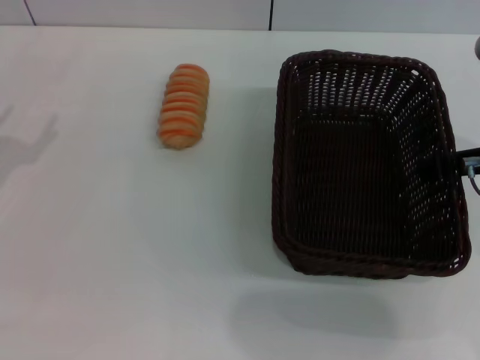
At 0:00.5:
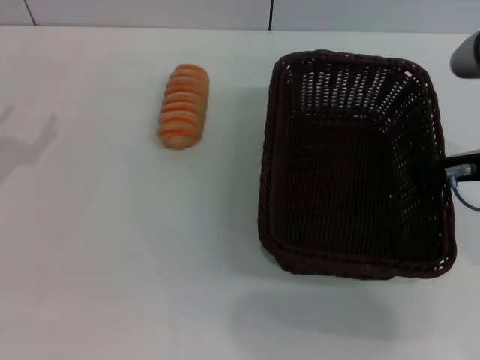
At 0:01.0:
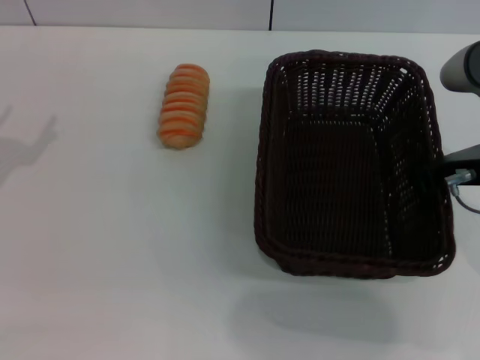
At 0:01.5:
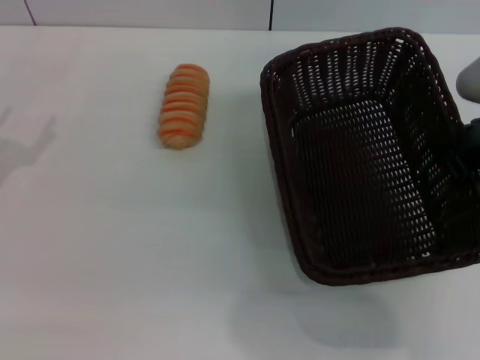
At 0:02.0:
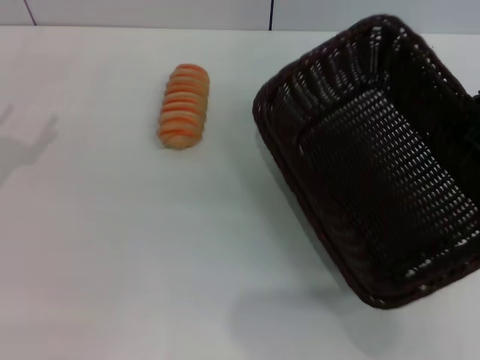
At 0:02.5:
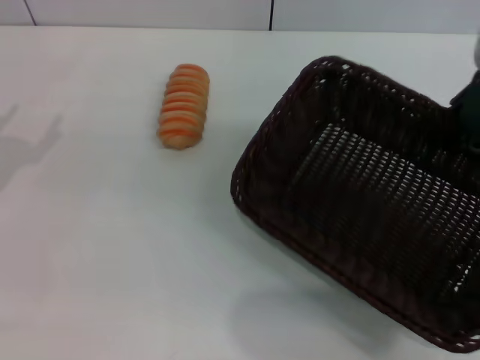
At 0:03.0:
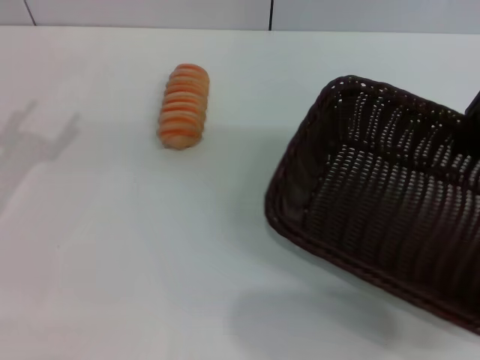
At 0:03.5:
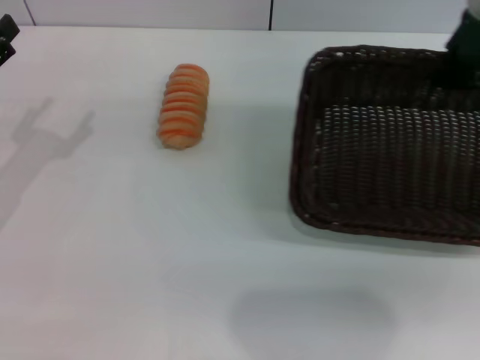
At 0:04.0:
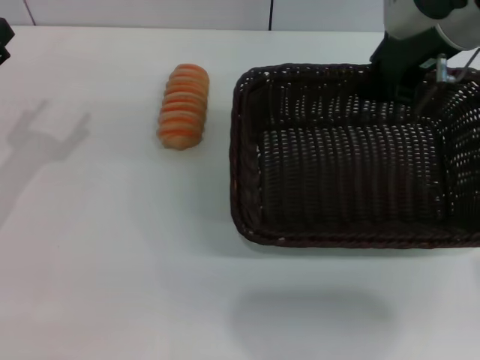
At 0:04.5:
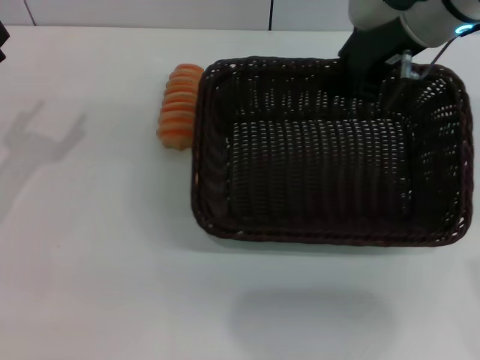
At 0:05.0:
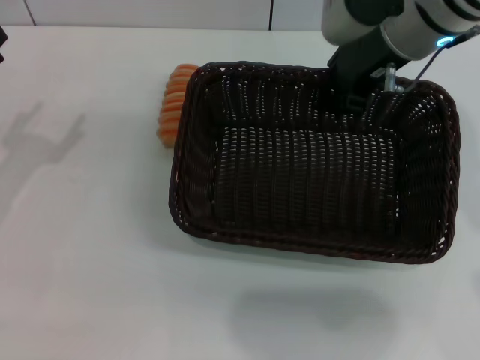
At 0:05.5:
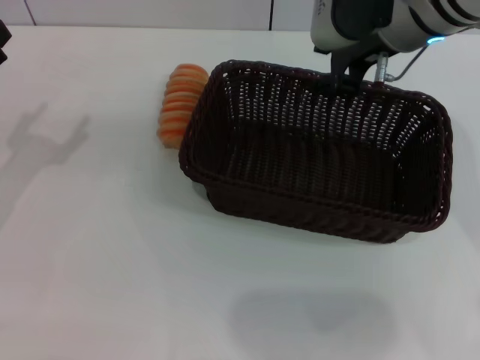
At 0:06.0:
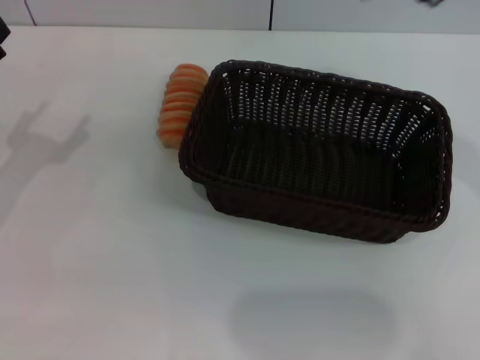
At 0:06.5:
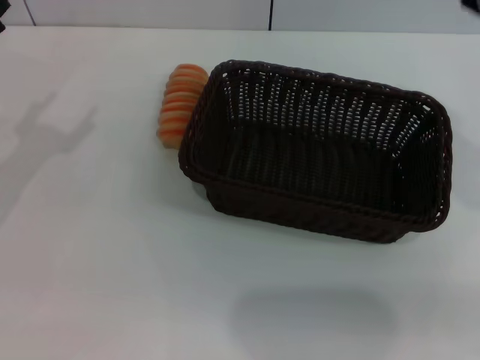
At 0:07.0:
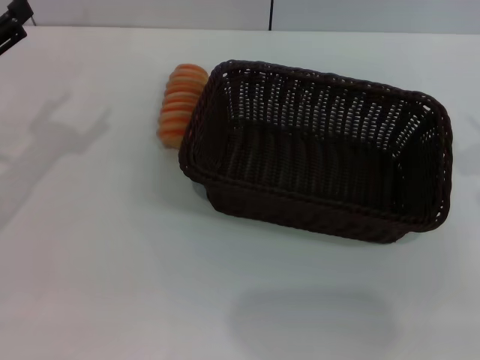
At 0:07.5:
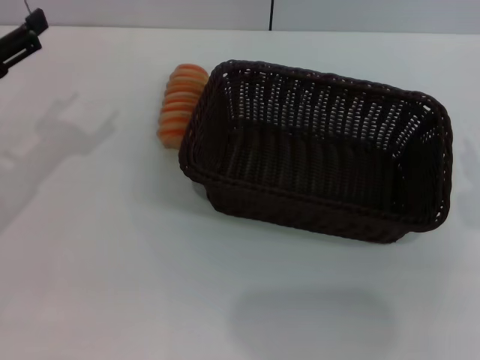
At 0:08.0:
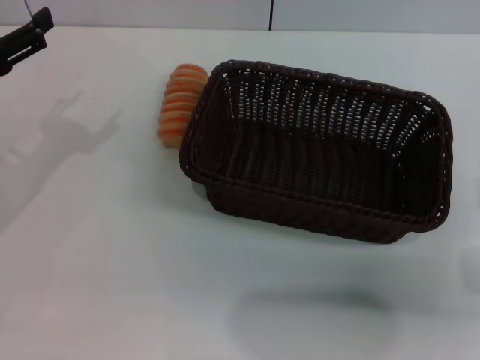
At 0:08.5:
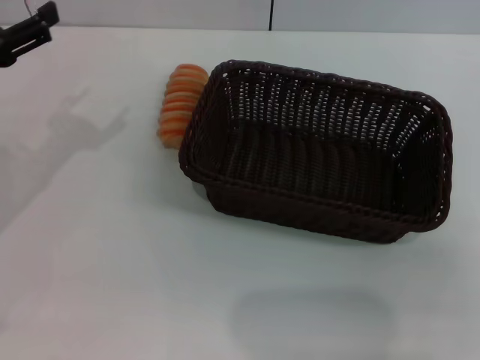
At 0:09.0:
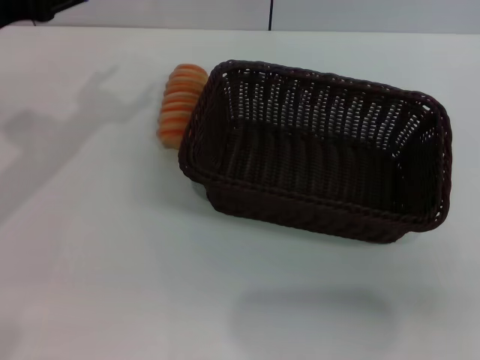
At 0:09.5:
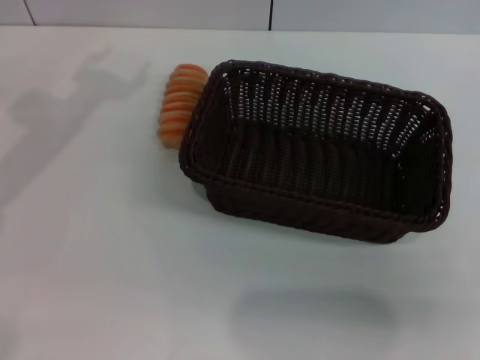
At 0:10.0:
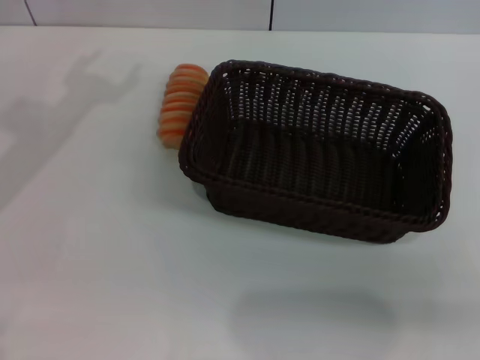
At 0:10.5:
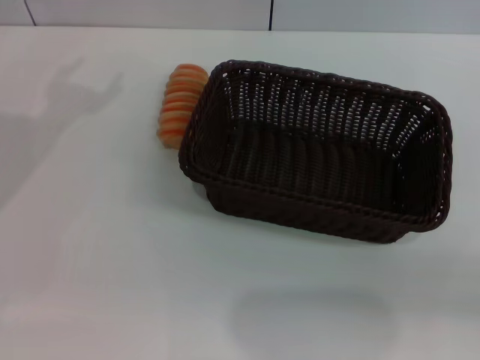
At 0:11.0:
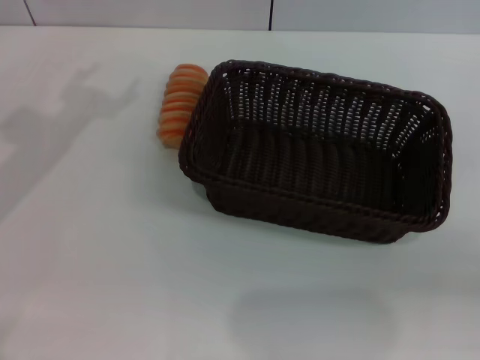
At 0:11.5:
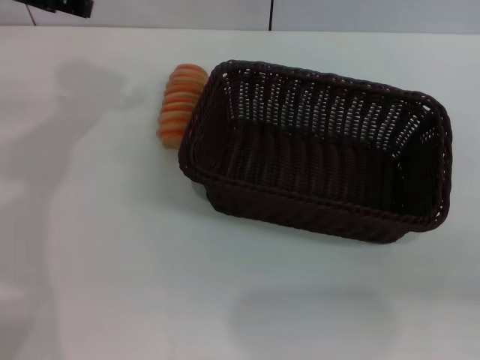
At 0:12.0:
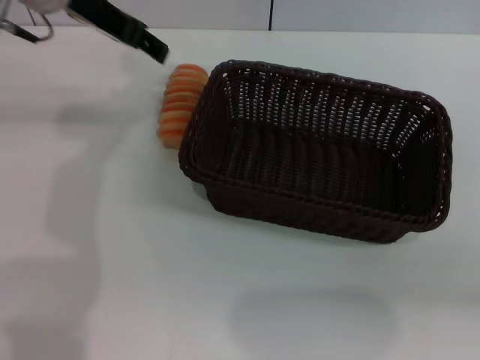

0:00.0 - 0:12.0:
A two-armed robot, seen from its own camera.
Step, 0:02.5 - 0:05.5: Place the dark basket in the center of view with the right gripper.
0:00.0 - 0:02.0: The right gripper shifts by approximately 5 cm, and closes.
0:02.0 - 0:04.0: The right gripper heads forward and to the left, covering about 15 cm.
0:04.0 - 0:06.0: The right gripper moves backward and upward, about 10 cm, and opens up.
0:06.0 - 0:08.0: The left gripper ends up some 5 cm from where it was. The right gripper travels backward, downward and to the right by approximately 25 cm.
0:08.0 - 0:10.0: The left gripper heads upward and forward, covering some 10 cm.
0:10.0 - 0:12.0: The left gripper travels to the right and forward by about 15 cm.

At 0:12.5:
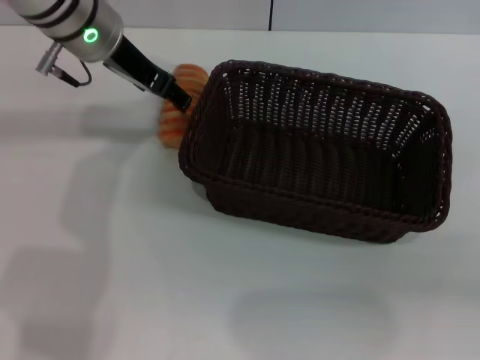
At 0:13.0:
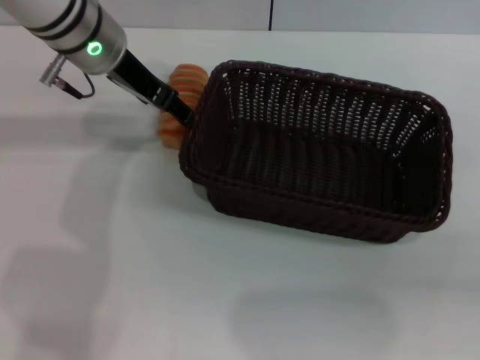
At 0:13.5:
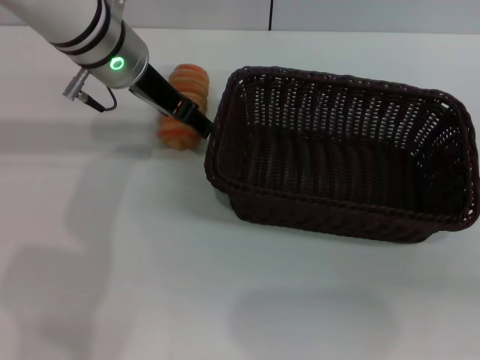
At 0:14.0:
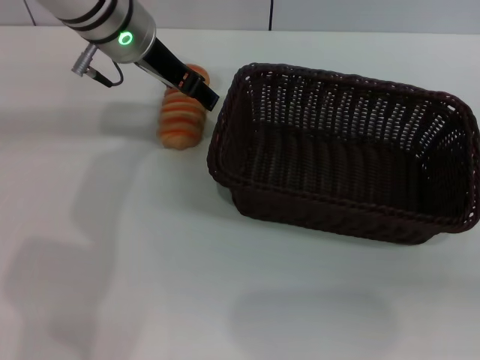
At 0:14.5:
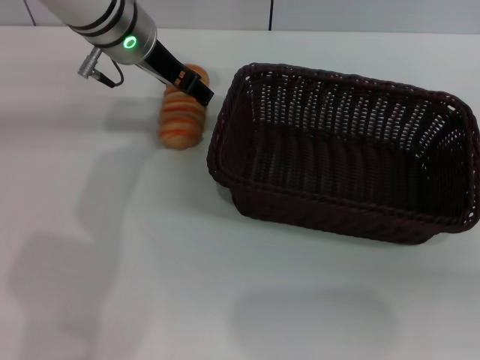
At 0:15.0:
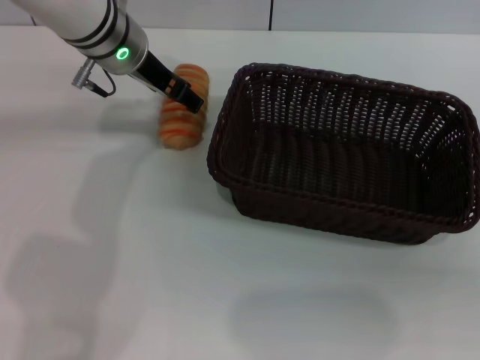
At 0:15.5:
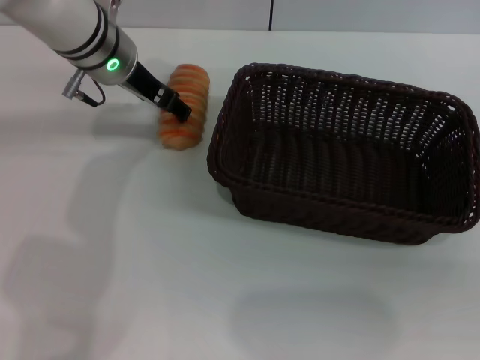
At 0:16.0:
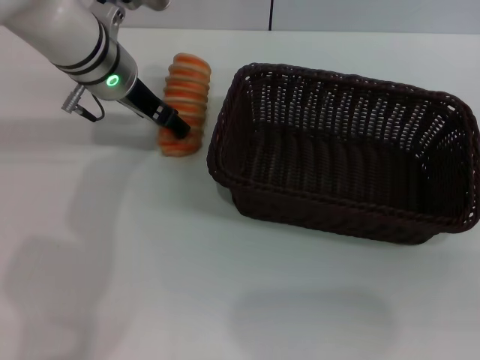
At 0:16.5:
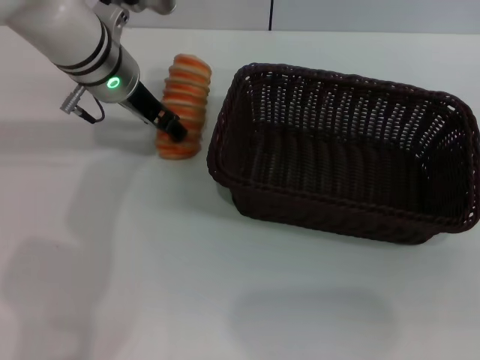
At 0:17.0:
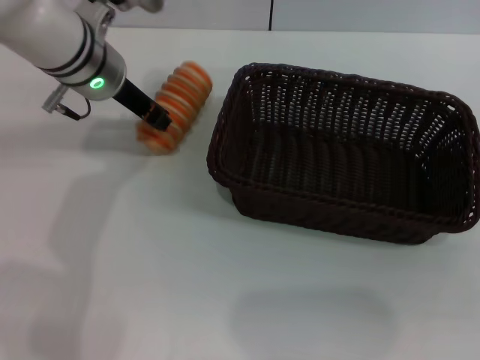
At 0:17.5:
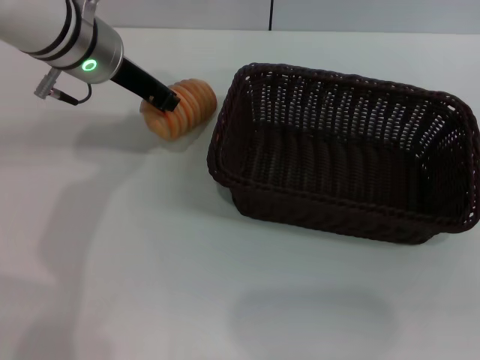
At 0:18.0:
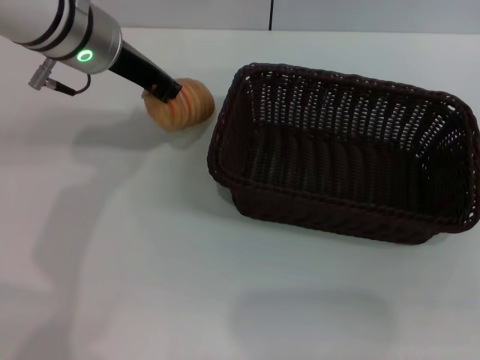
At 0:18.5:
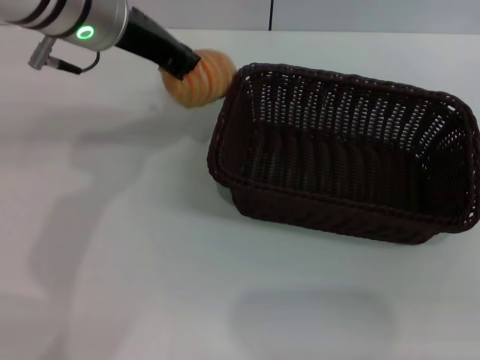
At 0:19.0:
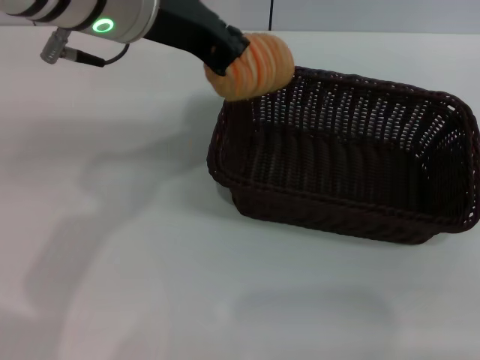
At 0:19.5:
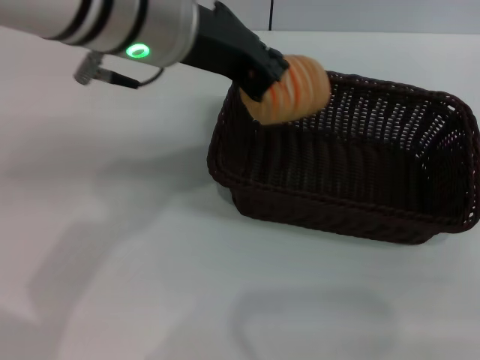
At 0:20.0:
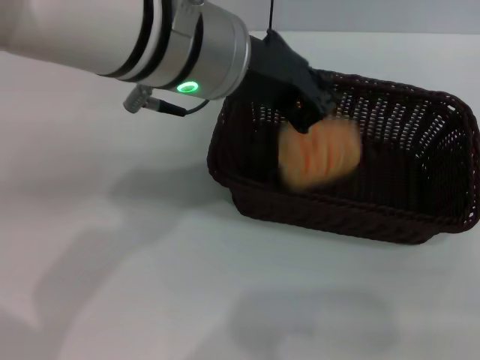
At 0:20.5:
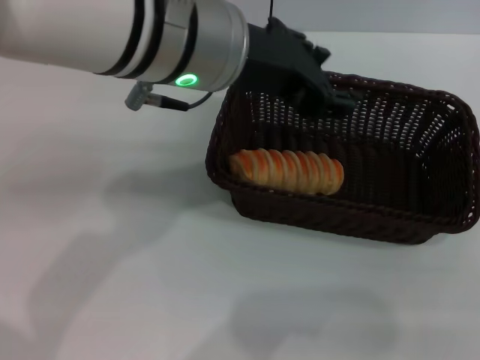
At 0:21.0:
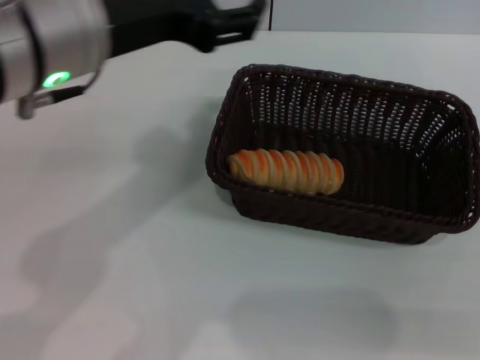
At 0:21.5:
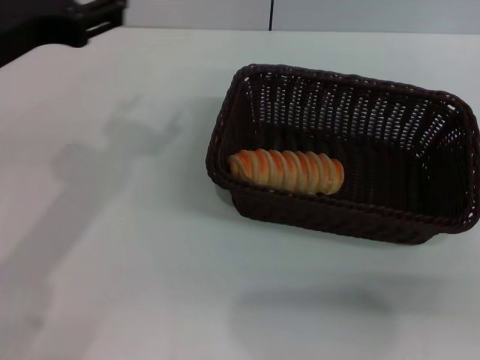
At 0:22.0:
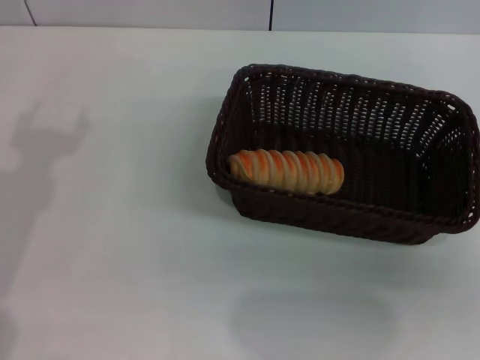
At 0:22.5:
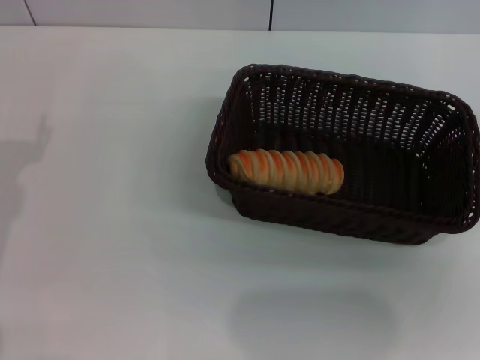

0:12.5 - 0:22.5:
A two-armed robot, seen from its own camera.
Step, 0:12.5 - 0:18.5: Pick up the long bread with the left gripper.
Step, 0:19.0 - 0:20.5: Place the long bread into the dark basket with the left gripper.
0:12.5 - 0:16.5: The grippers move only a little.
0:16.5 - 0:18.5: The left gripper shifts roughly 10 cm upward, and closes.
0:18.5 - 0:20.5: The left gripper heads backward and to the right, covering about 10 cm.
0:20.5 - 0:22.5: The right gripper shifts about 10 cm to the left and forward; the left gripper moves to the left, approximately 25 cm, and opens.
